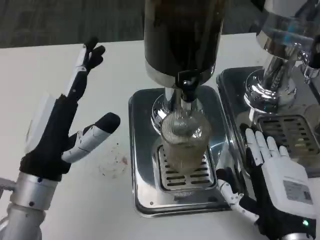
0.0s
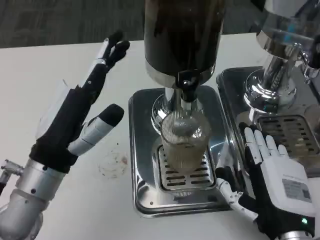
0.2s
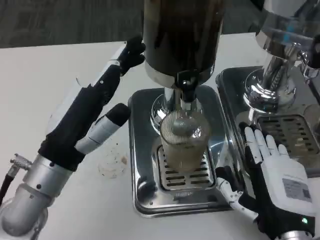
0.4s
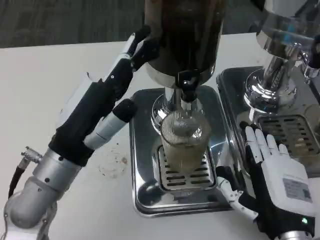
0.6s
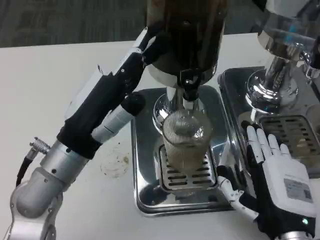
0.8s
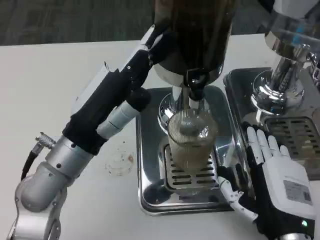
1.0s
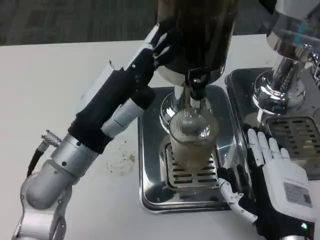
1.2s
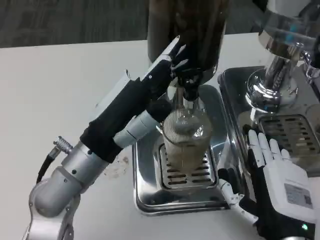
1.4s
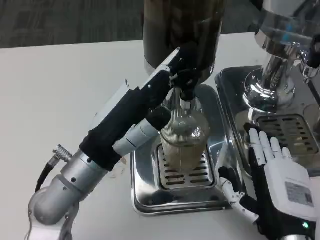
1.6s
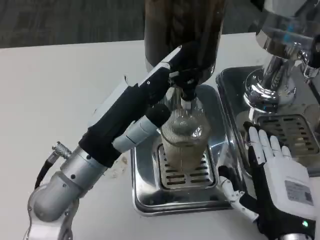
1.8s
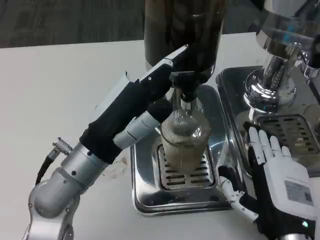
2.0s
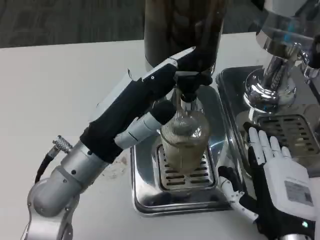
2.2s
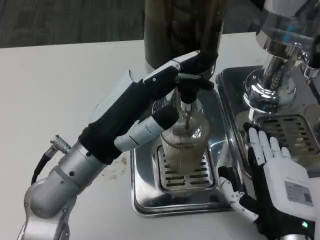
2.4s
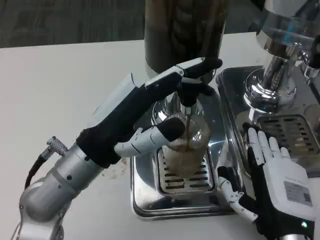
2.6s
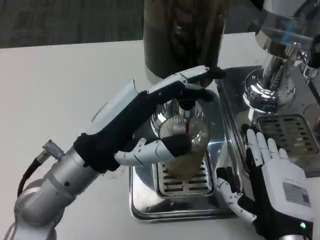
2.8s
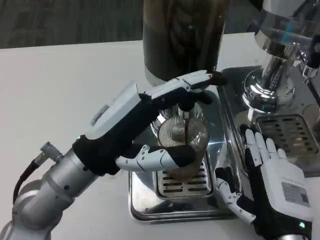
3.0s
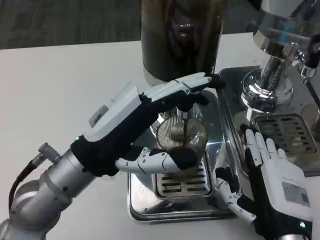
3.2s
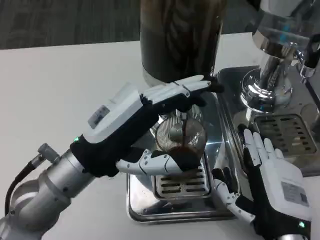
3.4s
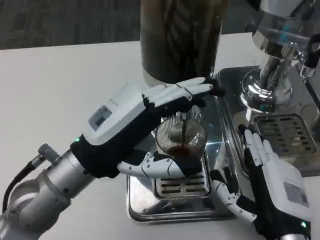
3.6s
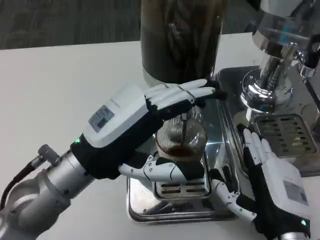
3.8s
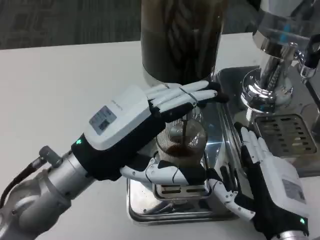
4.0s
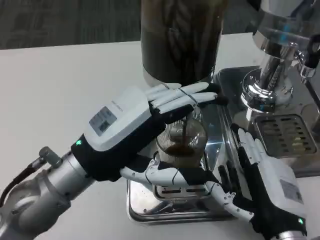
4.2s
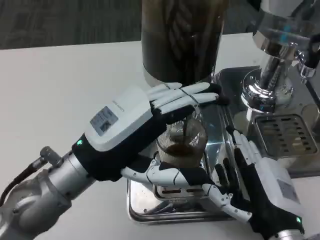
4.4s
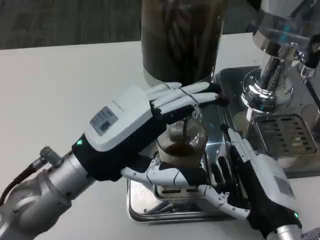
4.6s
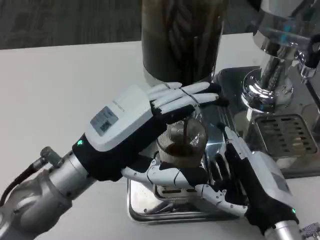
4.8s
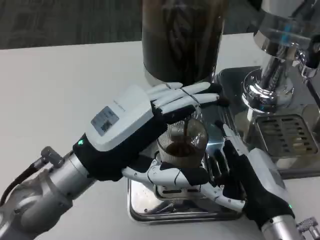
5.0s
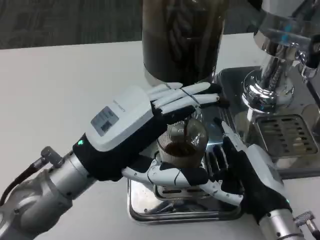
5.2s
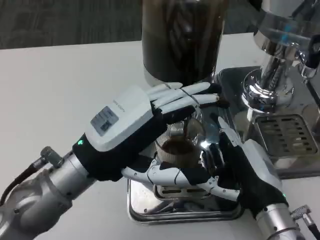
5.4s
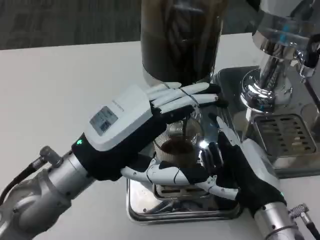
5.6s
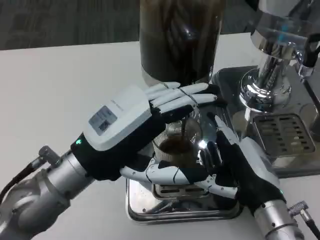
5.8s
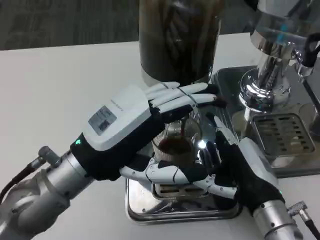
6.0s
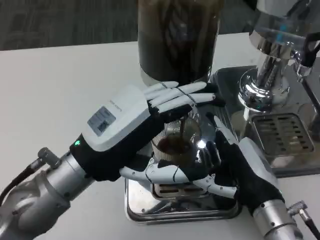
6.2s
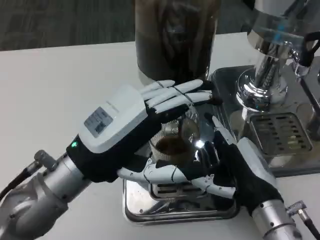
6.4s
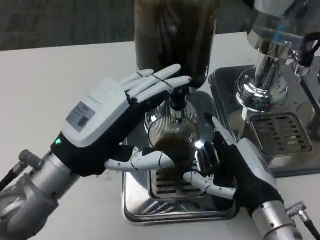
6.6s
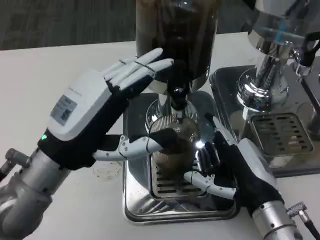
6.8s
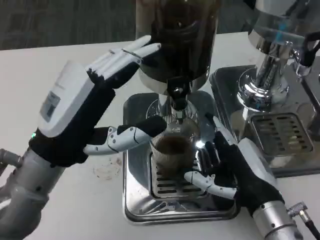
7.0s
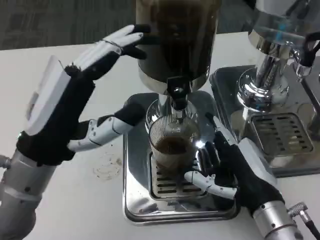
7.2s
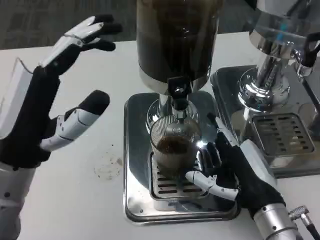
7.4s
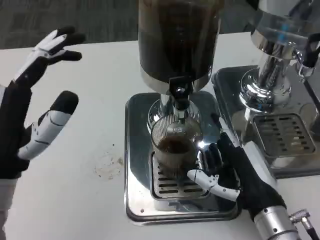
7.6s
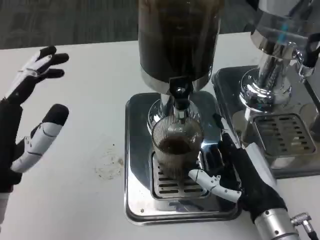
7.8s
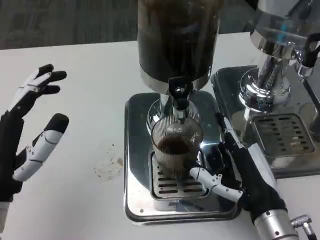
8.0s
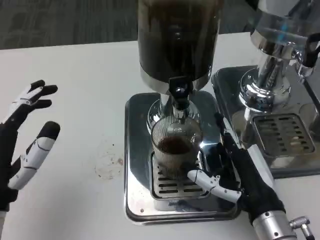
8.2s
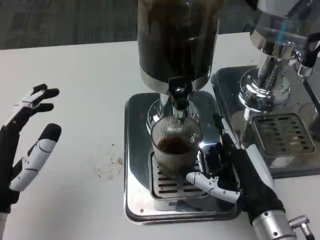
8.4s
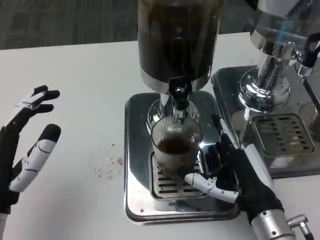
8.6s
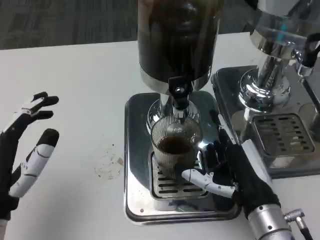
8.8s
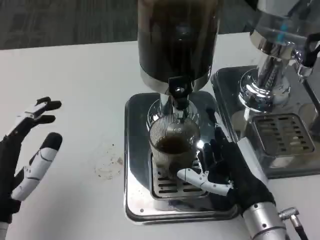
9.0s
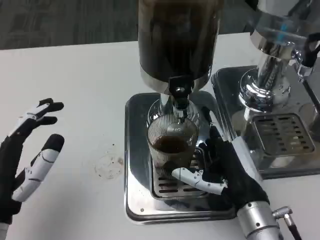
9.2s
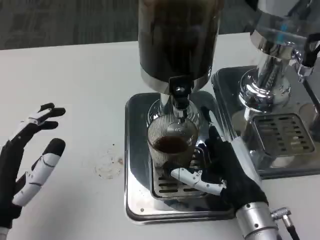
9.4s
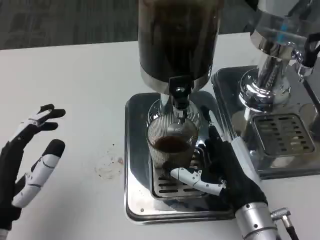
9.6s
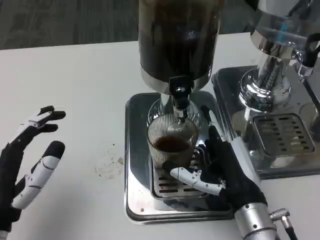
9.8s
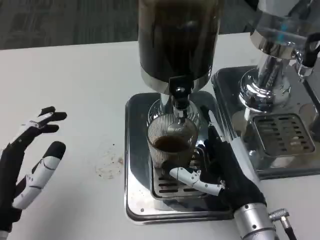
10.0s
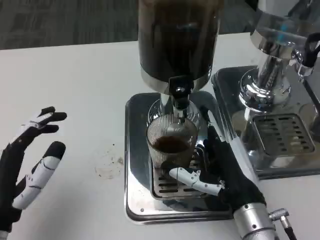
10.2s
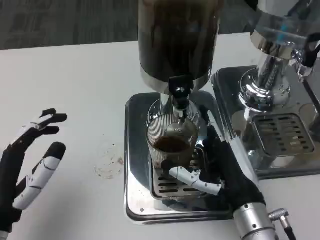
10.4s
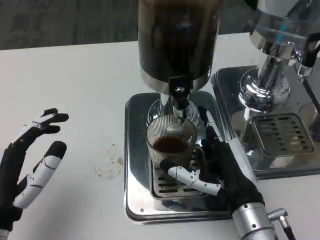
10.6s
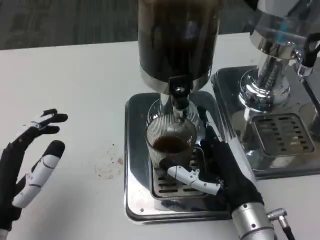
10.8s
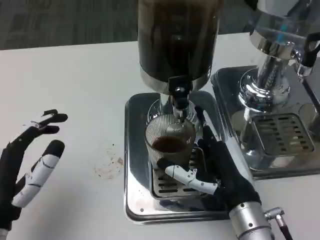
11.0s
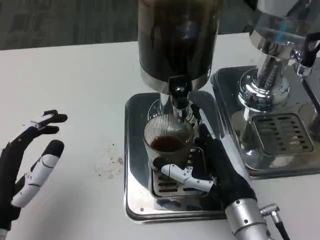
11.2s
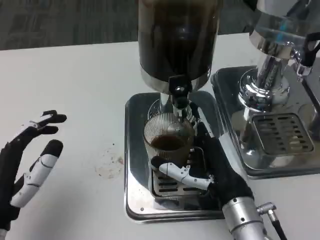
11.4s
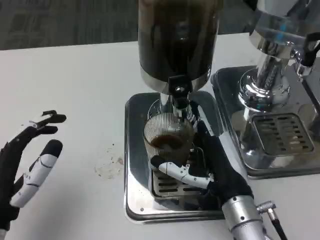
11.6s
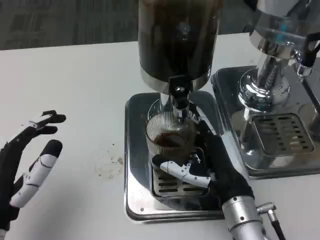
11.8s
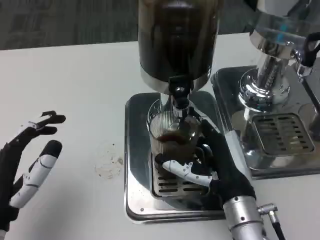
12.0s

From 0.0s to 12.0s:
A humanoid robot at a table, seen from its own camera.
Task of the whole recording: Grasp the cup under the faucet to collect the drink, then remove the cup.
From 0.0s to 1.6s: The left hand shifts by roughly 5 cm.
From 6.0s to 7.6s: The left hand moves to the left, about 5 cm.
From 7.6s to 9.0s: The left hand ends up roughly 5 cm from where it was.
From 9.0s to 10.4s: The two hands keep their place.
From 10.4s to 12.0s: There are only small adjustments of the hands.

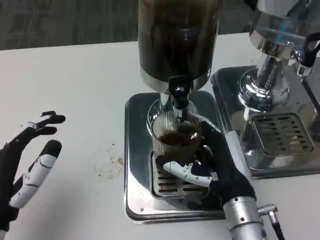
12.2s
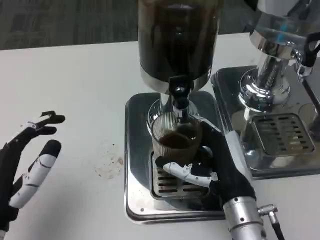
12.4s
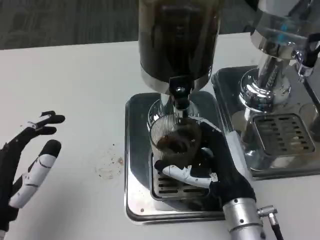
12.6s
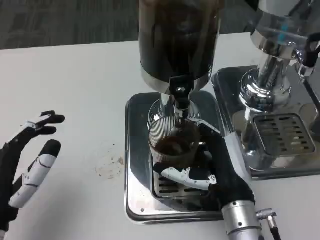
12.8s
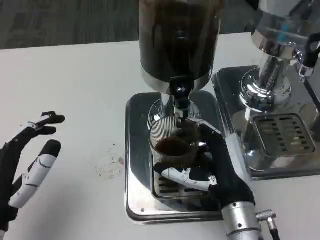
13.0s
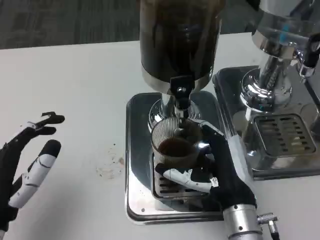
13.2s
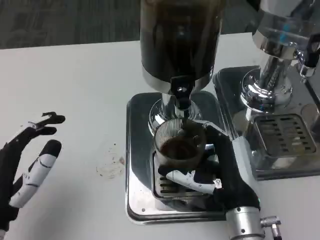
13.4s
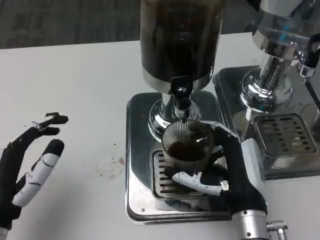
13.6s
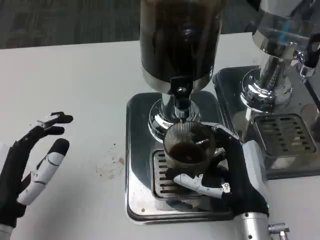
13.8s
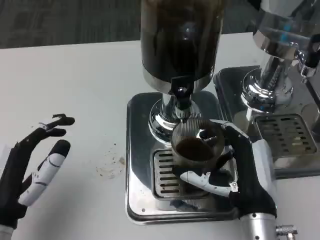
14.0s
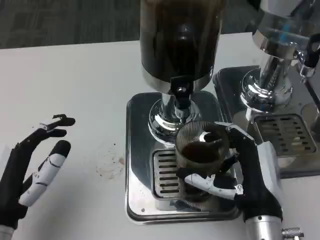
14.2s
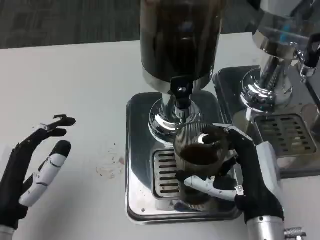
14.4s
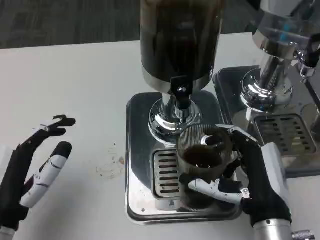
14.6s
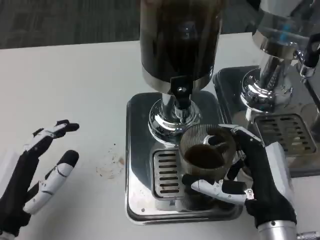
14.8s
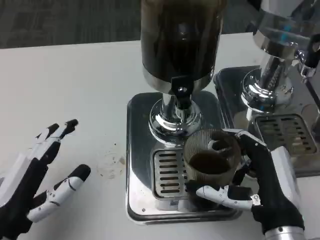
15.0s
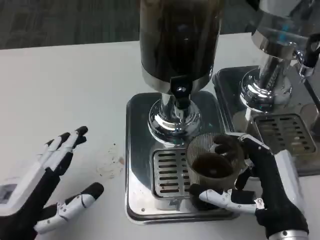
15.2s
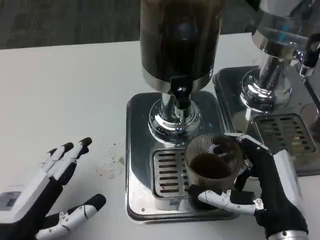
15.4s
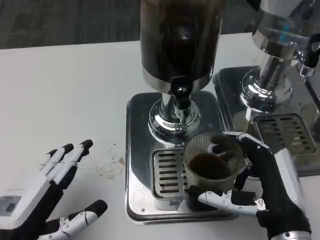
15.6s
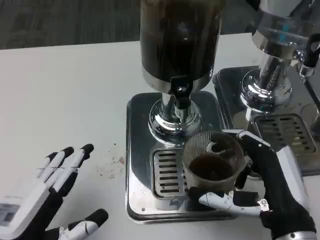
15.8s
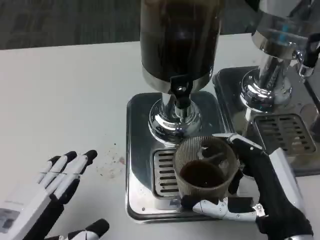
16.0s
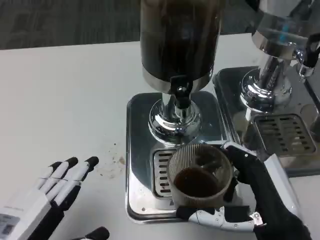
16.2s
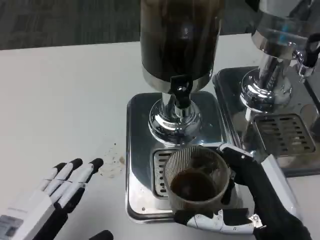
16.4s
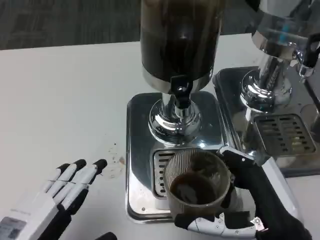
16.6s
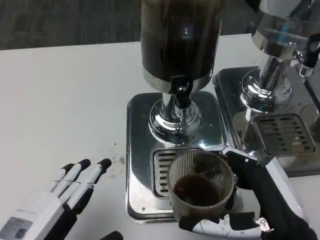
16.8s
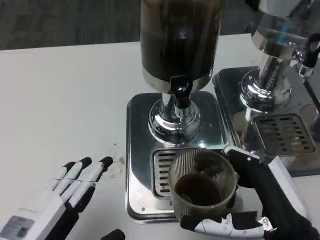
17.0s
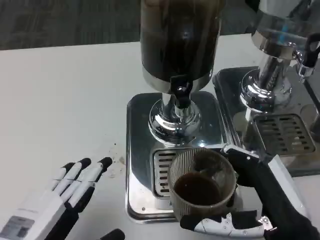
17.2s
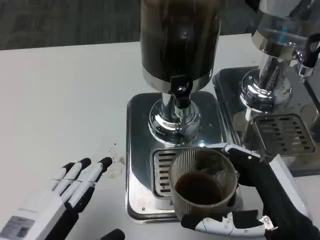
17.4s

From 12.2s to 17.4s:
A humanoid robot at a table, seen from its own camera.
Task of the whole recording: Grasp the cup under the faucet to collect the drink, then remove the cup.
From 14.0s to 15.6s: The right hand shifts by roughly 5 cm.

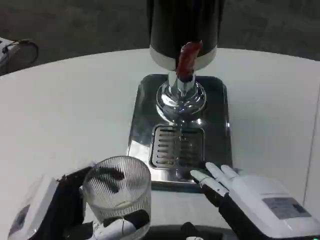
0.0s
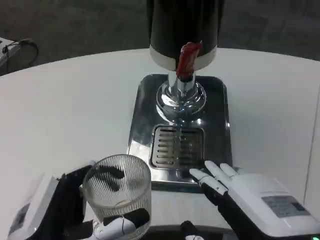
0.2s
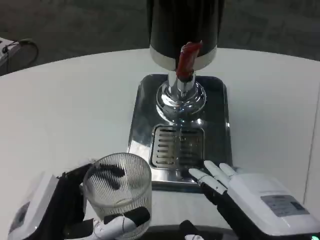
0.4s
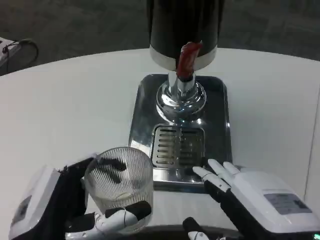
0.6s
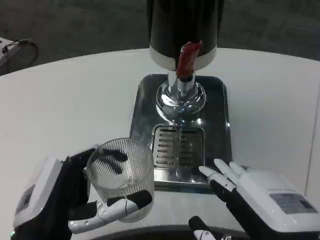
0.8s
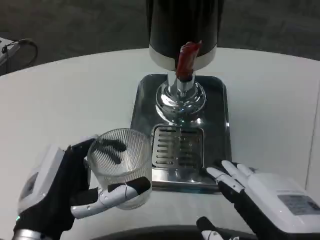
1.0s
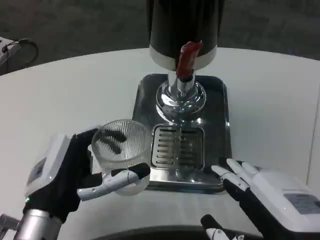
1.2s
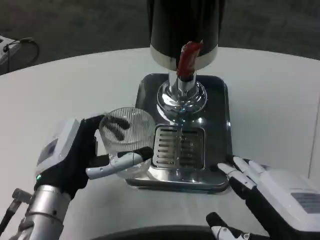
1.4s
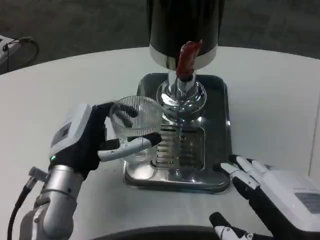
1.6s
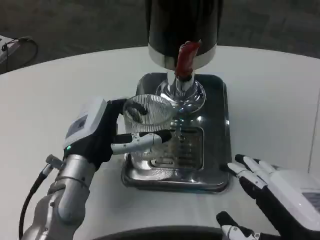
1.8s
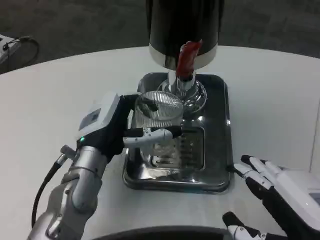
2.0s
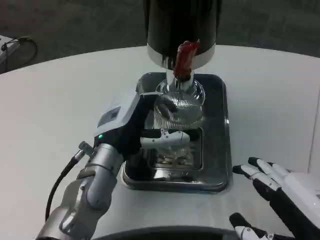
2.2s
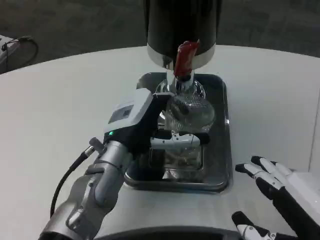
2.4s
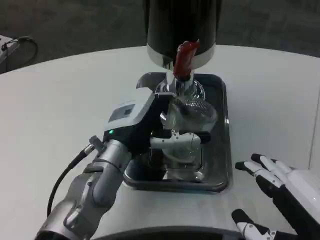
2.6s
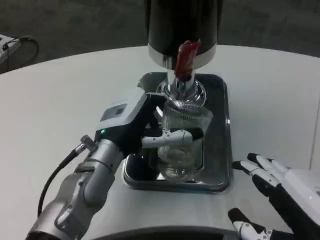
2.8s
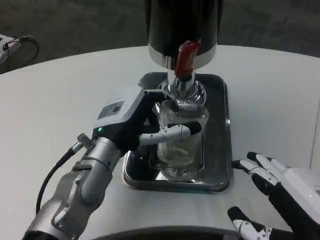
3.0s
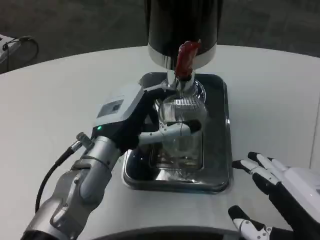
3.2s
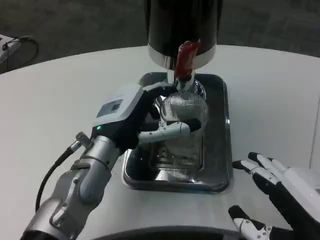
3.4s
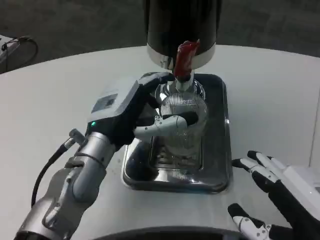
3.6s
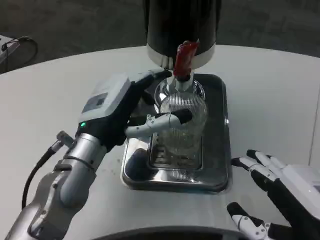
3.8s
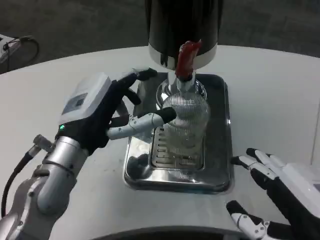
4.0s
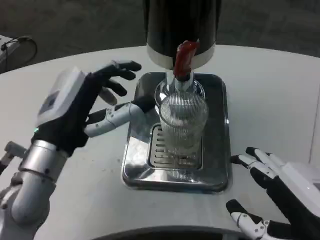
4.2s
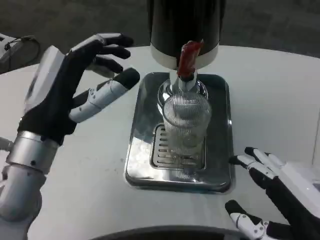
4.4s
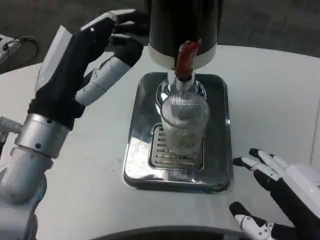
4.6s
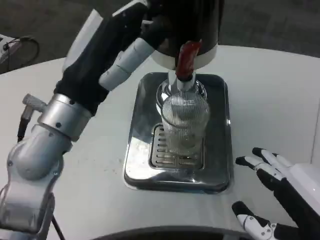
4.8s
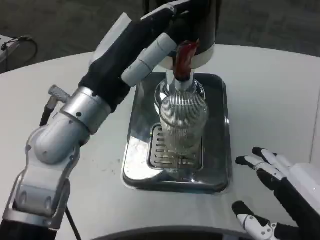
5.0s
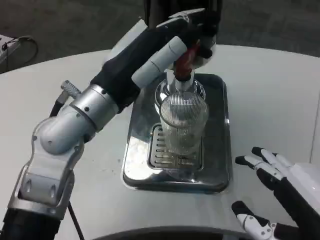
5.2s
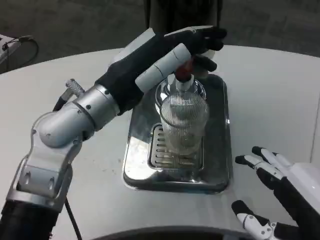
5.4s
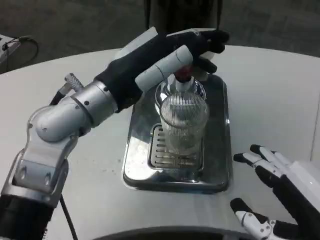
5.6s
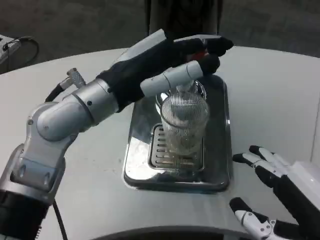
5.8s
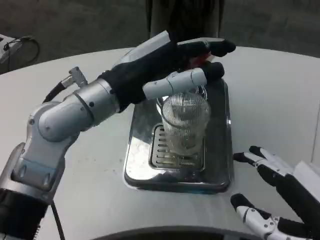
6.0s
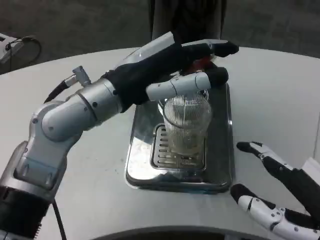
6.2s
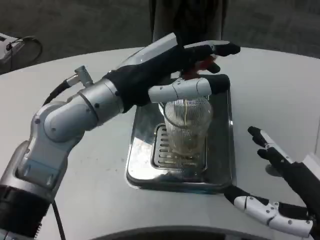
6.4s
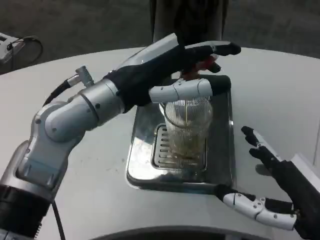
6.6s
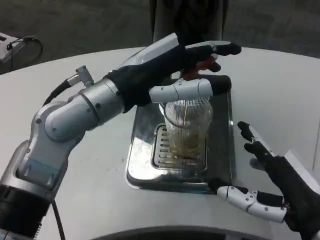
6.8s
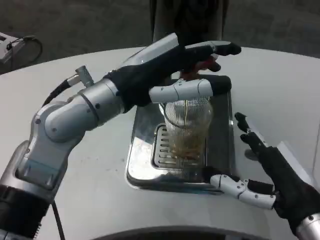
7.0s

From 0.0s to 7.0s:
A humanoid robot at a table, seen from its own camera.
Task of the whole recording: Grasp the cup under the faucet to collect the drink, then remove the cup.
From 0.0s to 1.4s: The left hand shifts approximately 10 cm forward.
From 1.4s to 2.8s: The left hand travels forward and to the right by approximately 10 cm.
From 2.8s to 4.2s: The left hand is displaced to the left and backward by about 10 cm.
From 4.2s to 5.6s: The left hand is displaced upward by about 10 cm.
From 5.6s to 7.0s: The right hand heads forward, covering approximately 10 cm.
